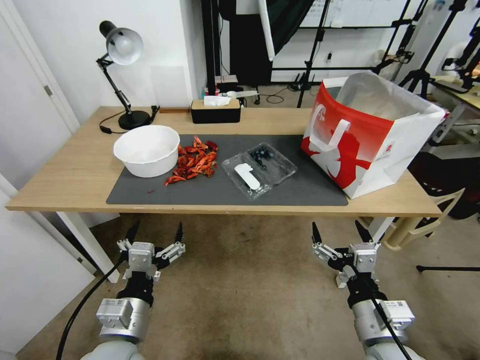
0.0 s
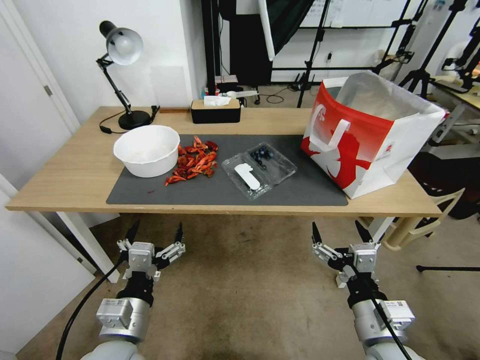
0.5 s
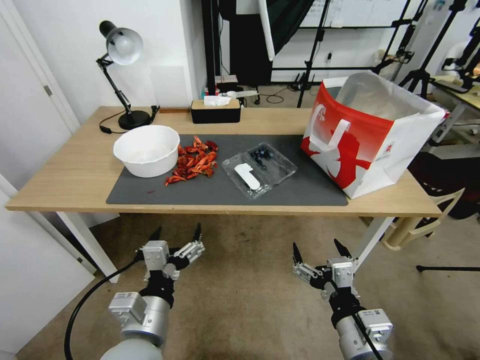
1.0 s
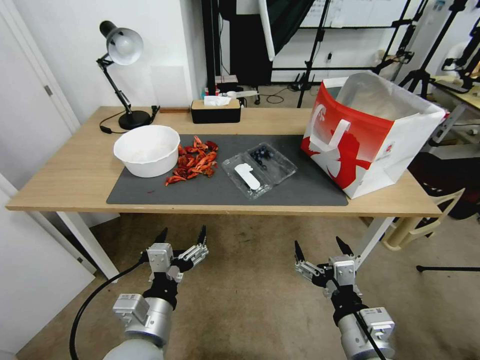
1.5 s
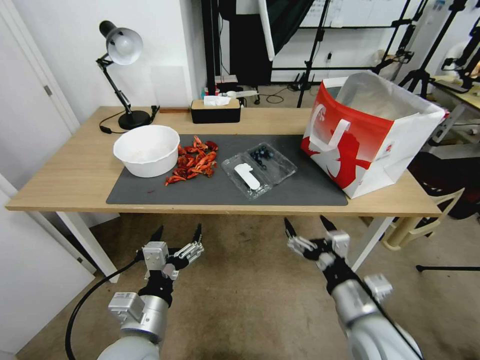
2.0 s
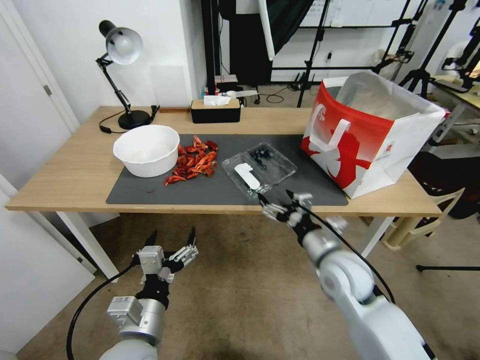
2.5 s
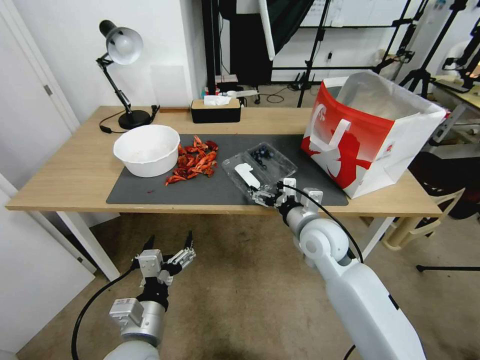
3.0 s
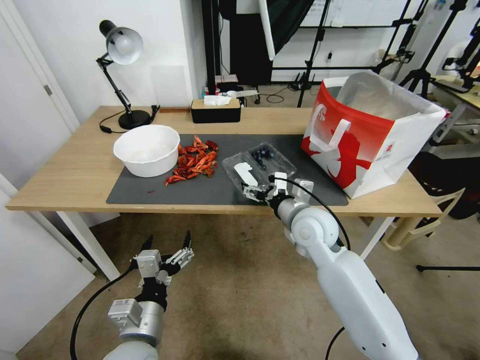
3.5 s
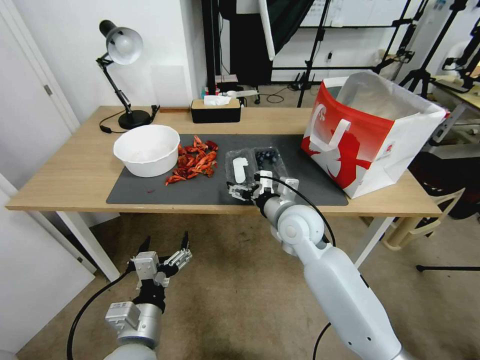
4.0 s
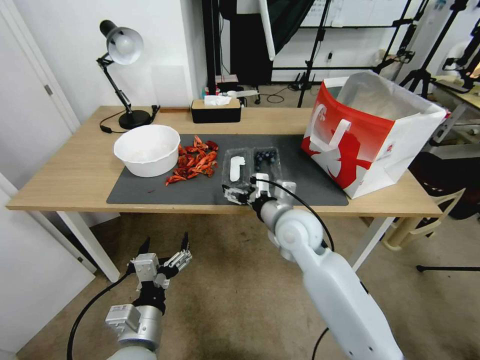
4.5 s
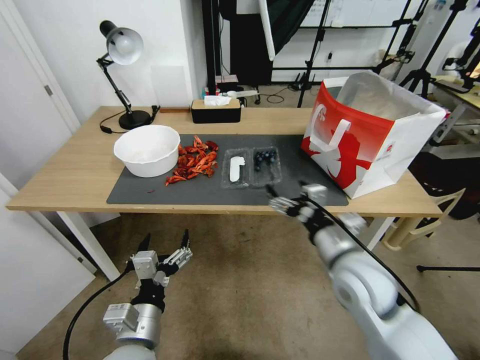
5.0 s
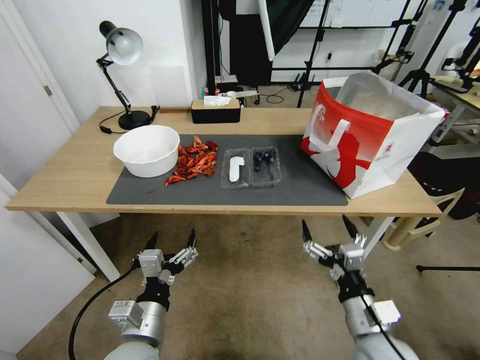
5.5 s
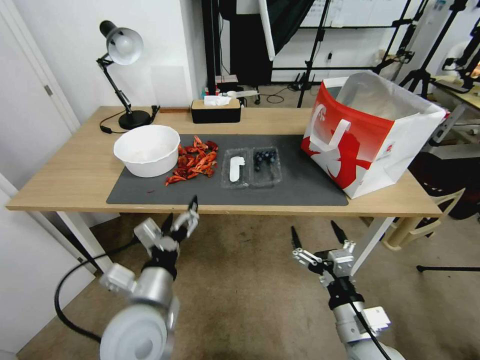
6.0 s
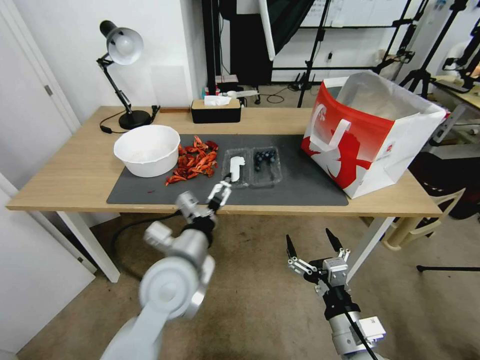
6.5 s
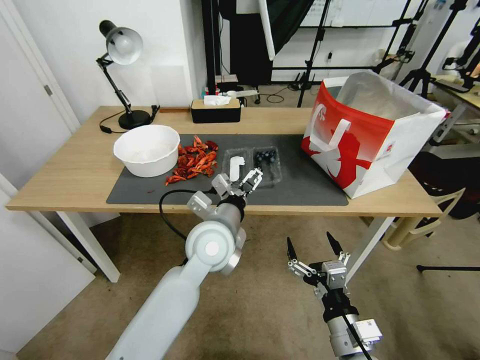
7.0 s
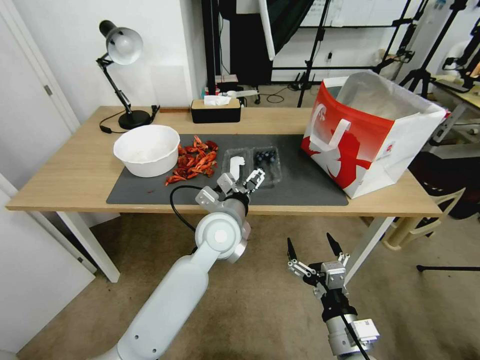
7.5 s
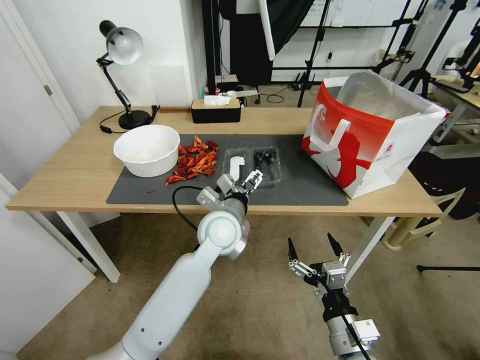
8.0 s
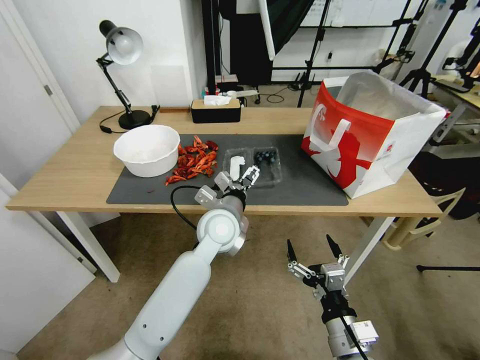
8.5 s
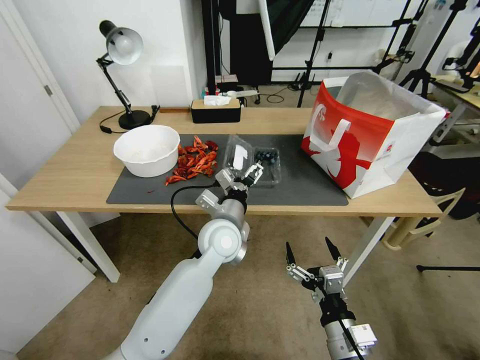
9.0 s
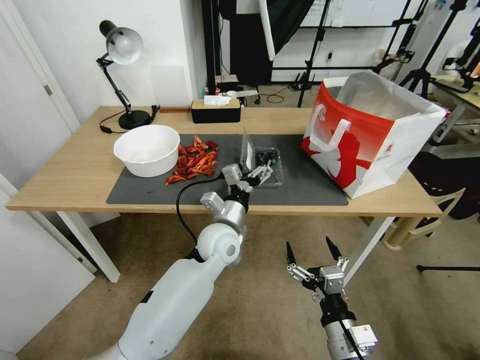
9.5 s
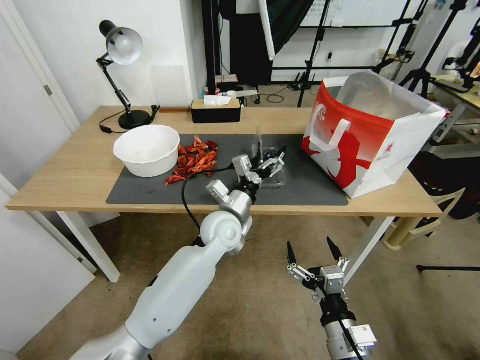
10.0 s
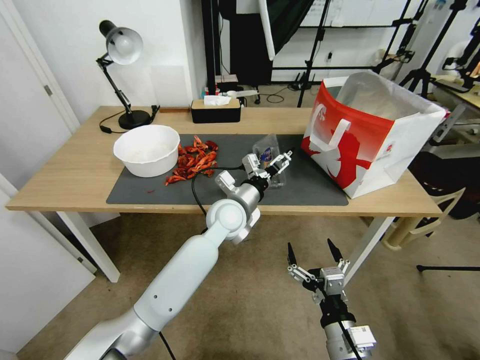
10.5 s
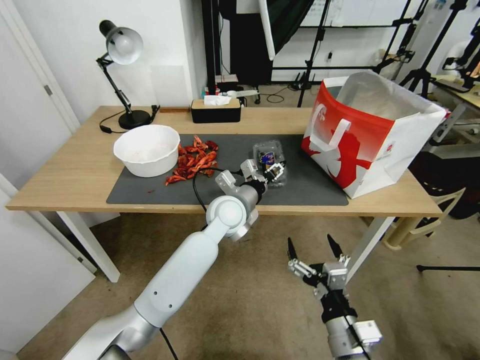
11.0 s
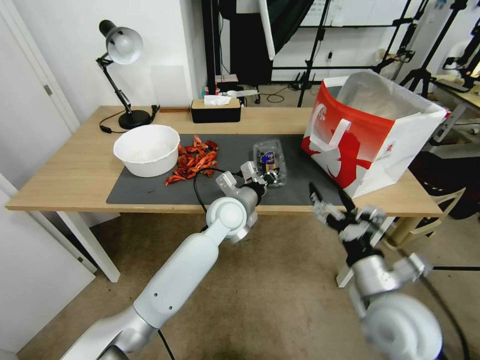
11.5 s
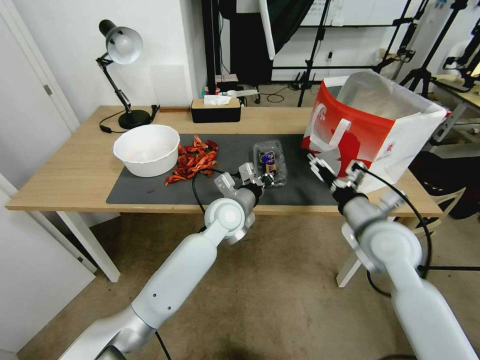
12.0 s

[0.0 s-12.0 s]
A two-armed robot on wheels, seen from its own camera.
Task of the whole recording: Close the takeout container lid, then place the container into the takeout bag.
2.0 to 4.0 s: The right gripper travels forward and to the left by approximately 25 cm.
4.0 to 6.0 s: The right gripper travels backward and to the right by approximately 25 cm.
6.0 to 8.0 s: The left gripper moves forward and to the right, roughly 25 cm.
10.0 to 12.0 s: The left gripper closes its fingers; the right gripper shifts approximately 25 cm forward and upward.

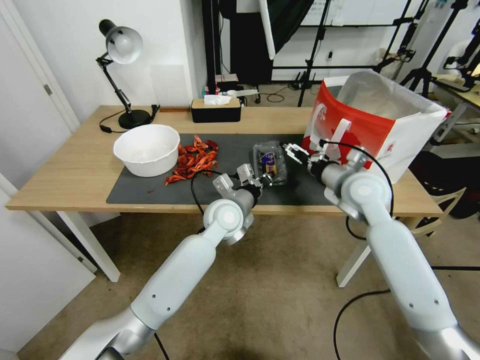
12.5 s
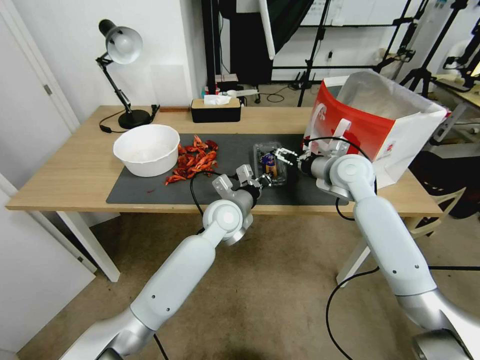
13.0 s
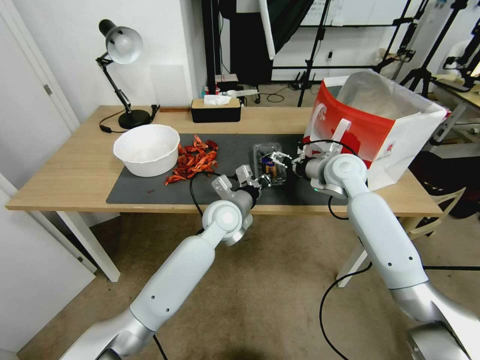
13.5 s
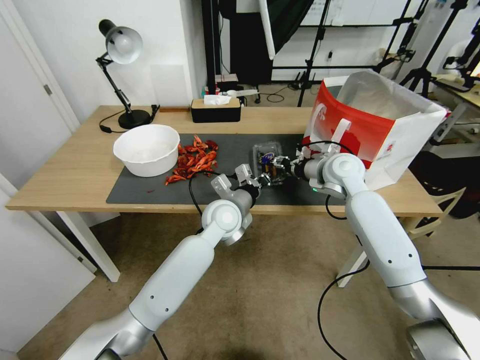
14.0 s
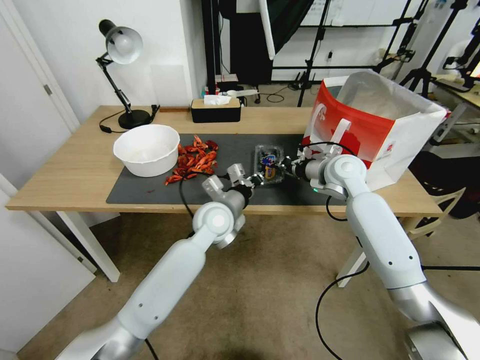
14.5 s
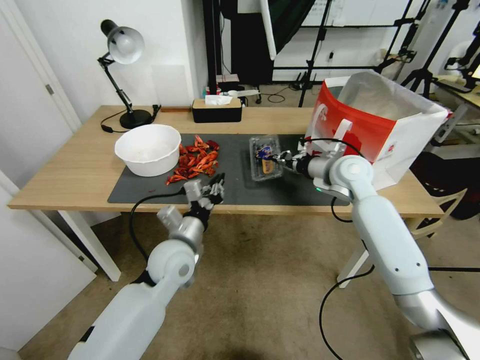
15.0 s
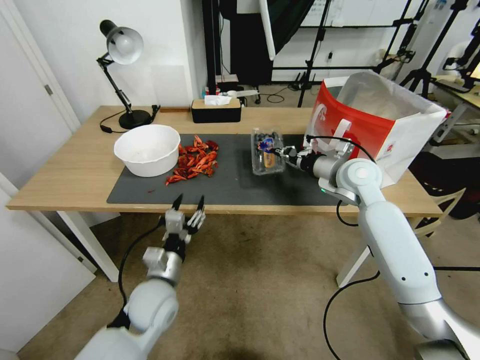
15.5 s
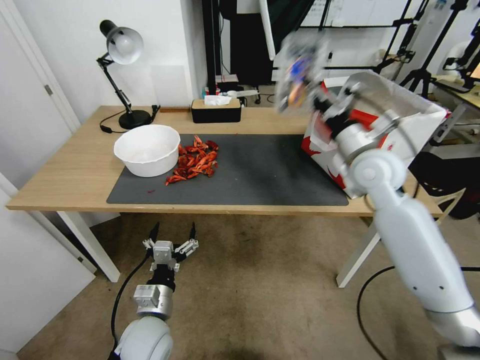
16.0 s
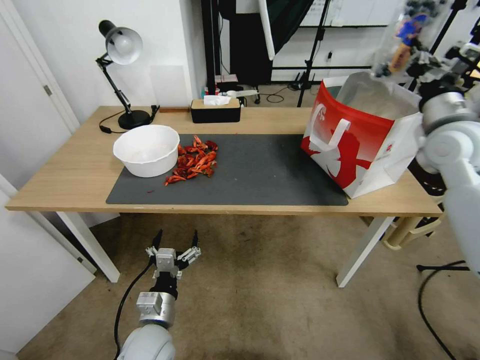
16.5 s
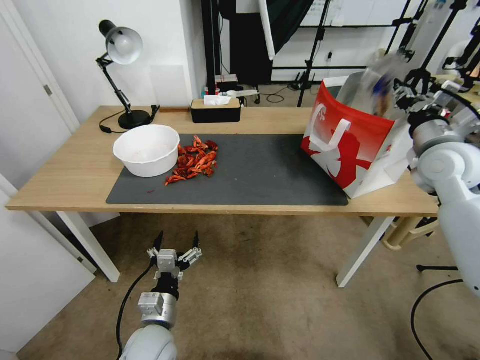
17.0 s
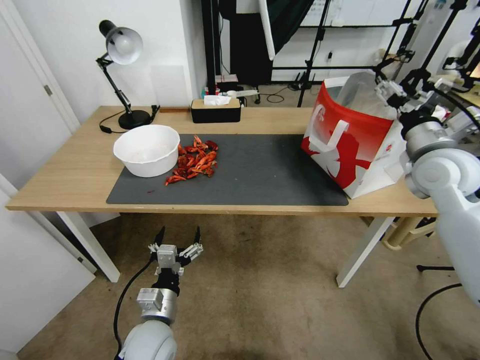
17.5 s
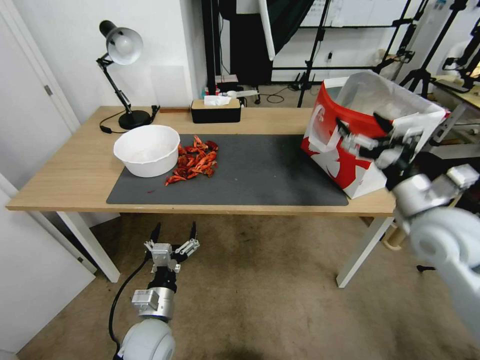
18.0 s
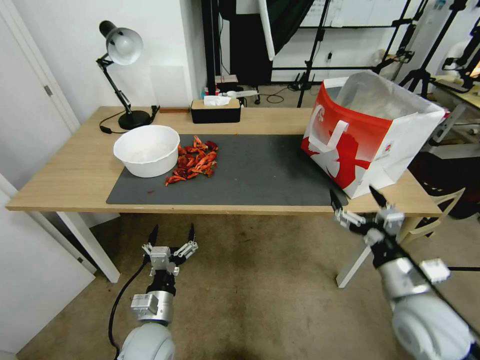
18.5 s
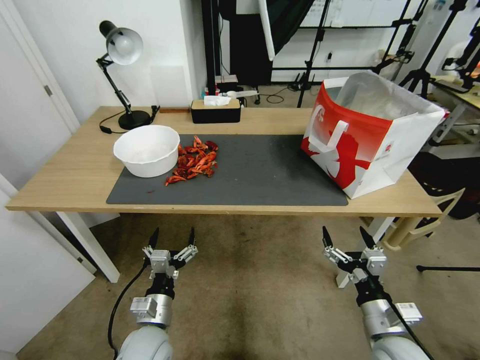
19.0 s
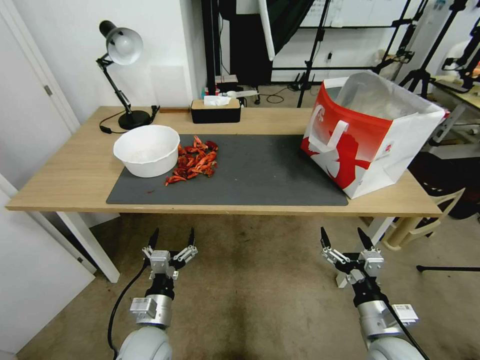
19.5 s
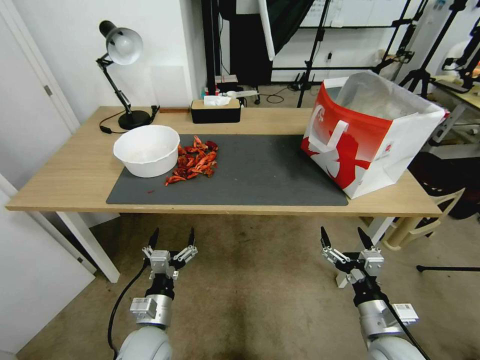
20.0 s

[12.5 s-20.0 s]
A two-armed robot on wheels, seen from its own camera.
Task of the whole recording: Close the takeout container lid, then place the container into the takeout bag.
12.5 to 14.5 s: The right gripper moves forward, some 5 cm, and closes its fingers.
14.5 to 16.5 s: The right gripper moves upward, to the right and backward, roughly 20 cm, while the left gripper travels backward, downward and to the left by approximately 30 cm, and opens its fingers.
16.5 to 18.0 s: The right gripper travels backward and downward by about 15 cm, and opens.
18.0 to 20.0 s: The right gripper shifts approximately 25 cm downward and backward.

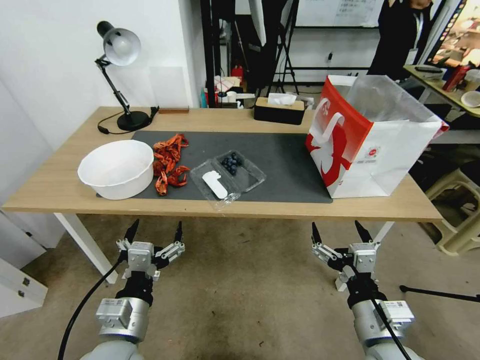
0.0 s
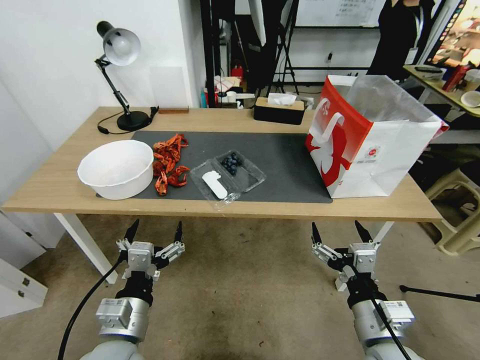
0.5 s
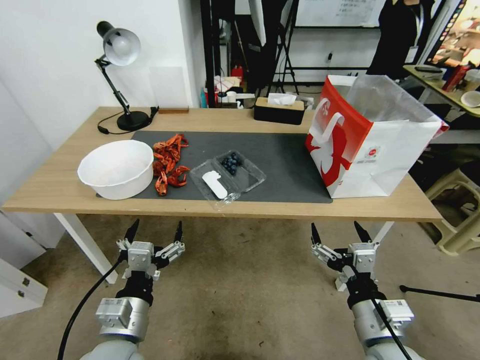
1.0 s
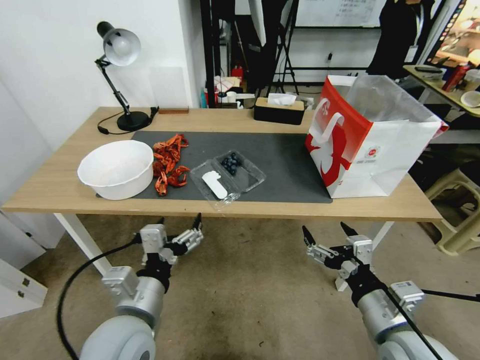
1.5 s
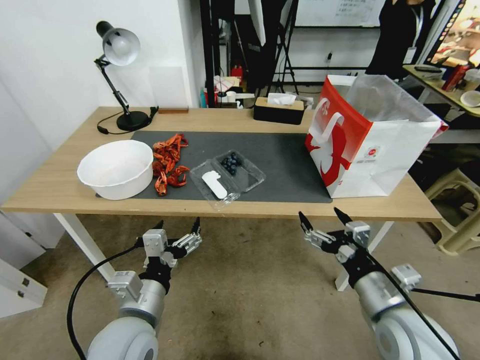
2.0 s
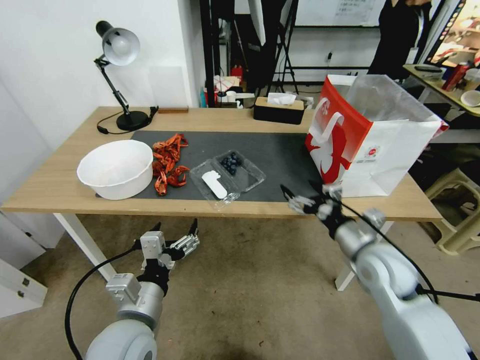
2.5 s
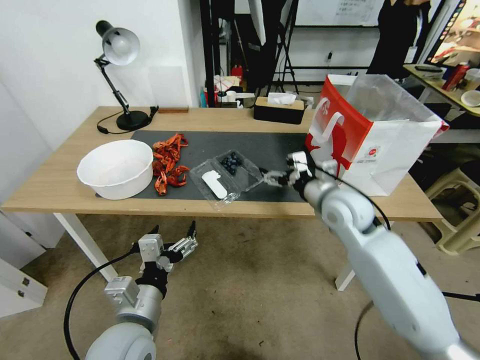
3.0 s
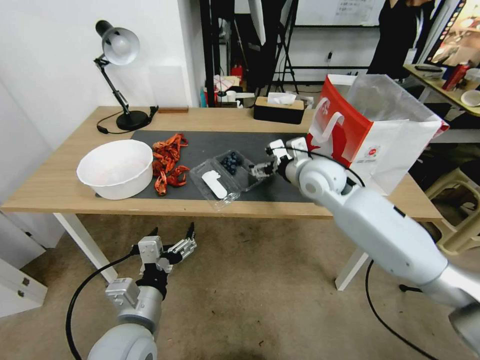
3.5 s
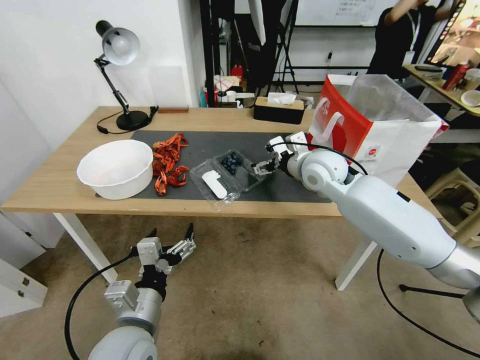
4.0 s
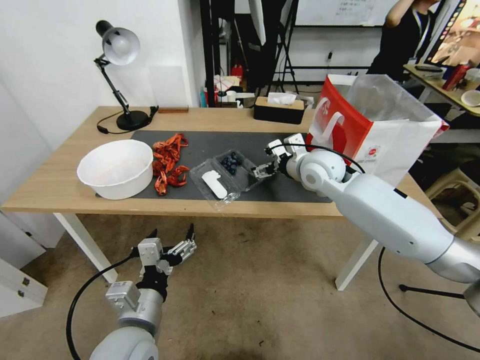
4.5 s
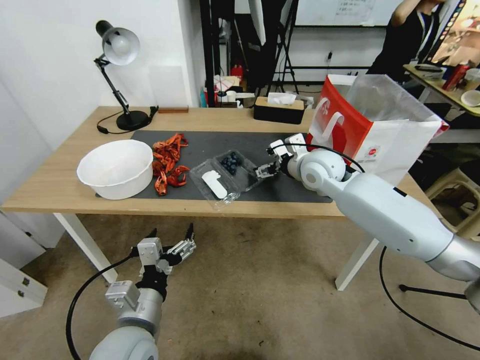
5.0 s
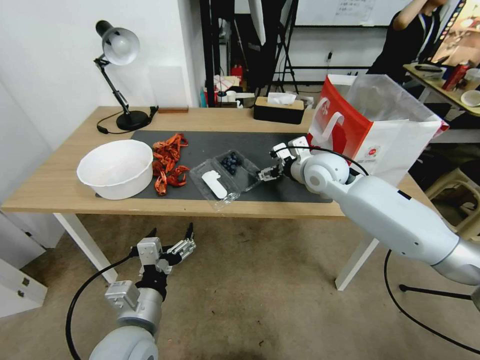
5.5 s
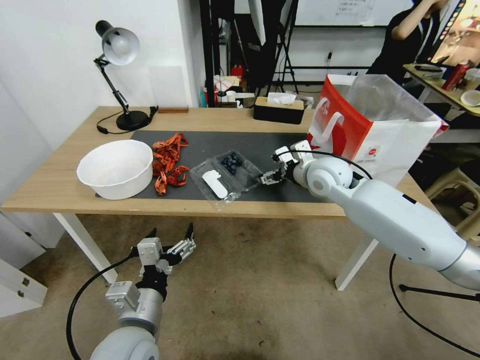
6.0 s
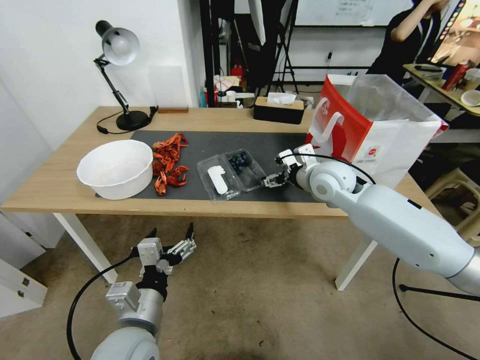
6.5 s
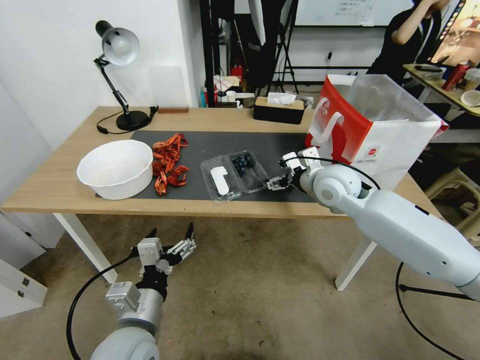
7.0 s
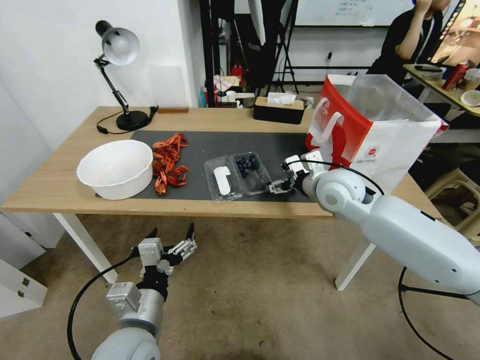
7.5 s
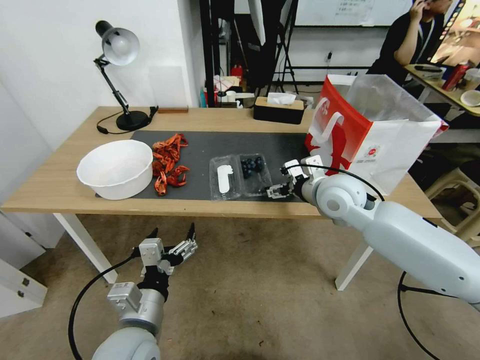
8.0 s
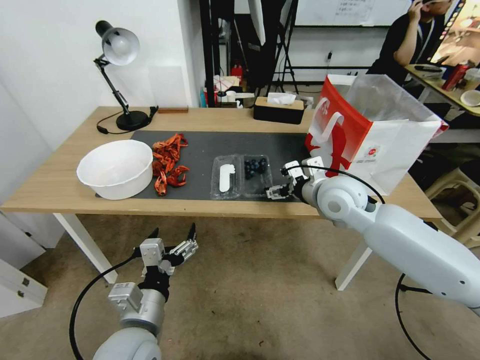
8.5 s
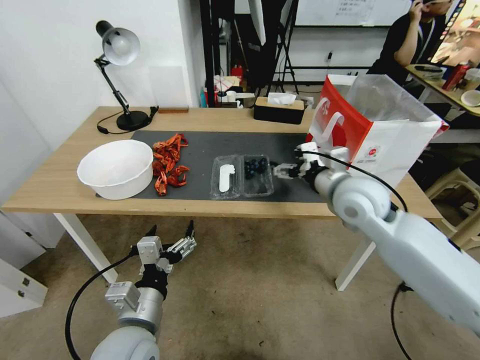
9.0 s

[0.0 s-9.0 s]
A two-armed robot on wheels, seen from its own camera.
Task of the whole recording: Close the takeout container lid, then place the container into the takeout bag.
2.0 to 4.5 s: The right gripper moves forward, approximately 30 cm.
4.5 to 7.0 s: The grippers stay close to where they were, moving slightly.
7.0 to 9.0 s: The right gripper shifts some 5 cm backward.
